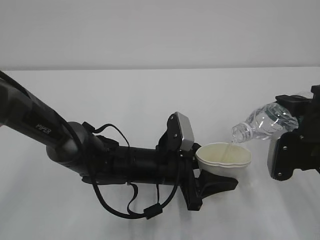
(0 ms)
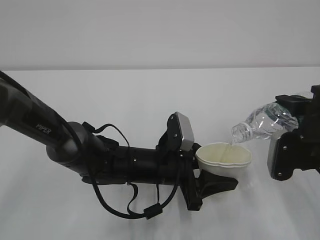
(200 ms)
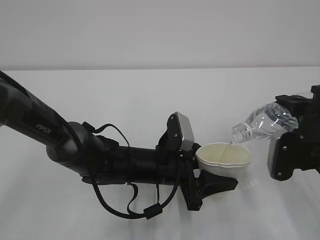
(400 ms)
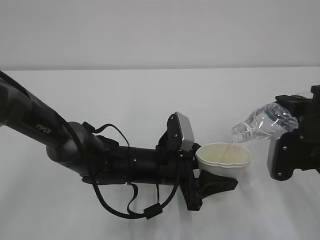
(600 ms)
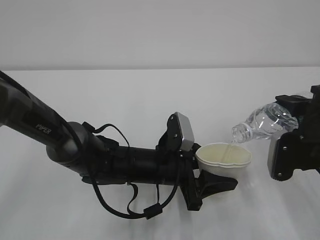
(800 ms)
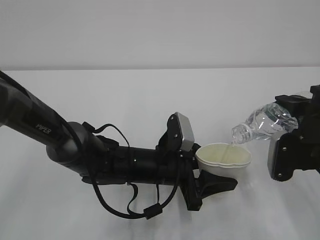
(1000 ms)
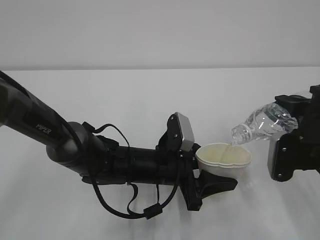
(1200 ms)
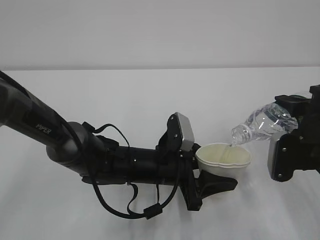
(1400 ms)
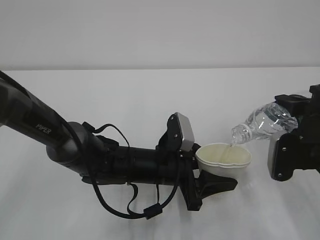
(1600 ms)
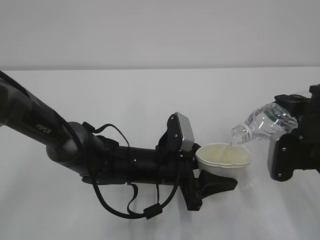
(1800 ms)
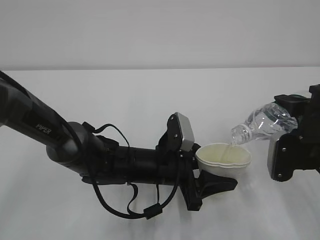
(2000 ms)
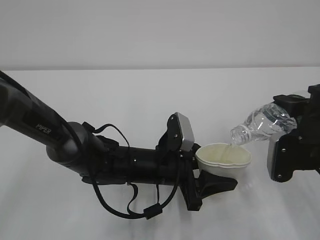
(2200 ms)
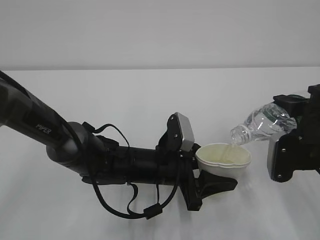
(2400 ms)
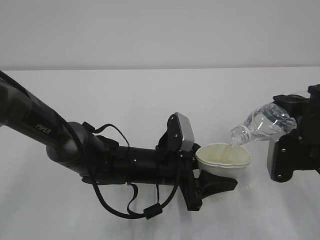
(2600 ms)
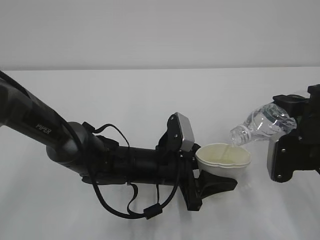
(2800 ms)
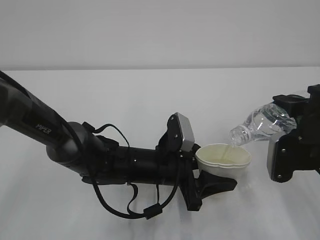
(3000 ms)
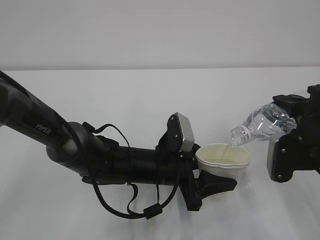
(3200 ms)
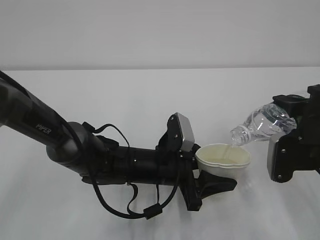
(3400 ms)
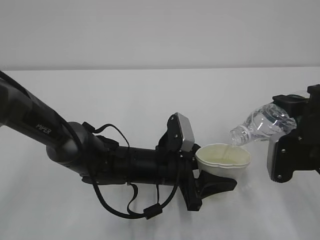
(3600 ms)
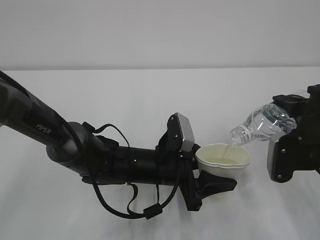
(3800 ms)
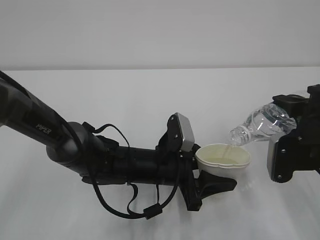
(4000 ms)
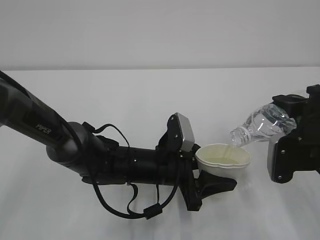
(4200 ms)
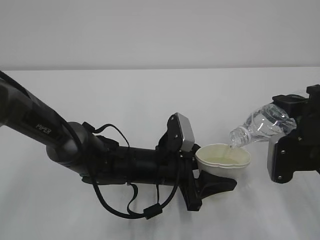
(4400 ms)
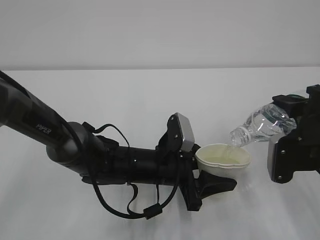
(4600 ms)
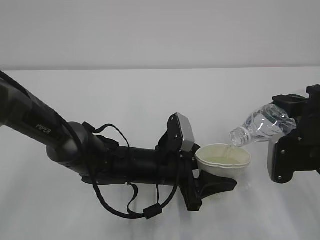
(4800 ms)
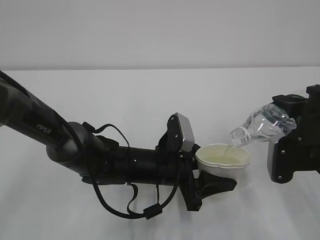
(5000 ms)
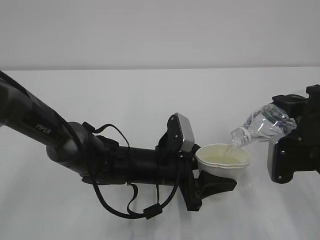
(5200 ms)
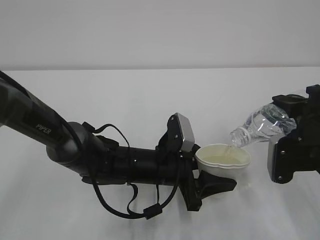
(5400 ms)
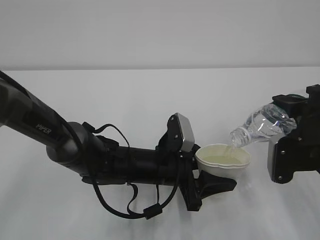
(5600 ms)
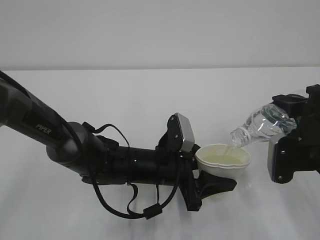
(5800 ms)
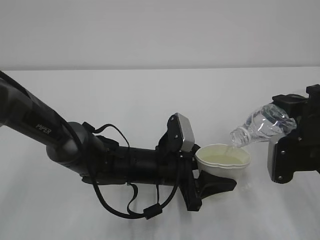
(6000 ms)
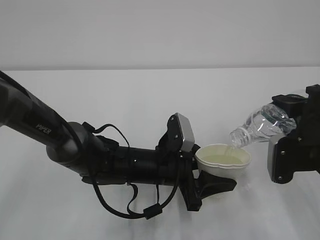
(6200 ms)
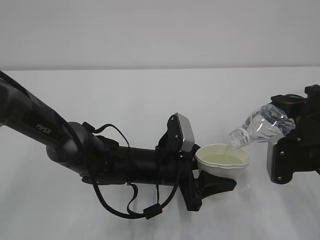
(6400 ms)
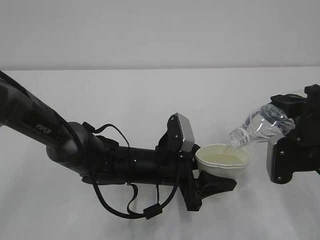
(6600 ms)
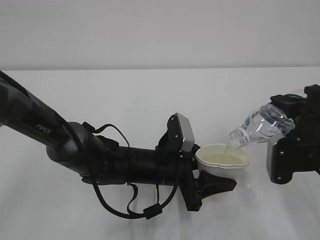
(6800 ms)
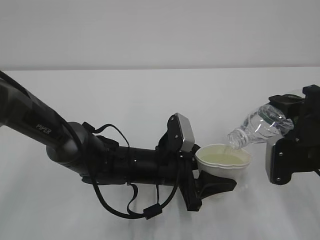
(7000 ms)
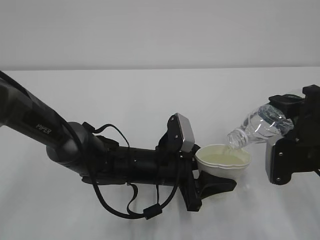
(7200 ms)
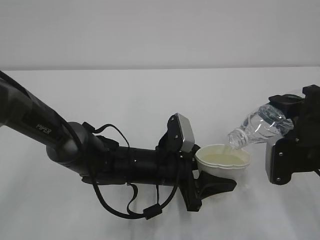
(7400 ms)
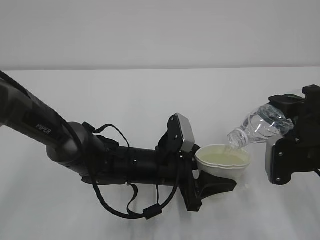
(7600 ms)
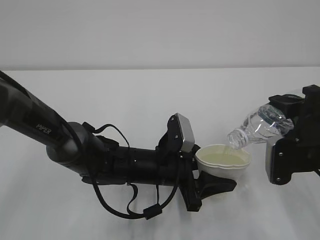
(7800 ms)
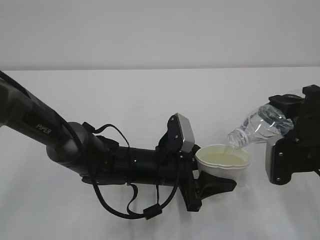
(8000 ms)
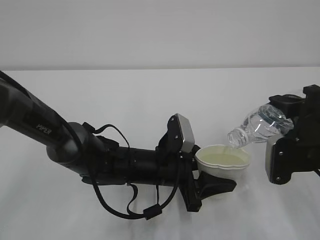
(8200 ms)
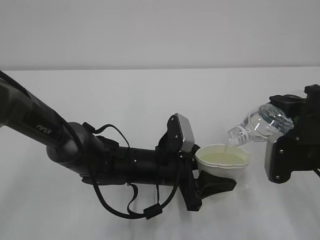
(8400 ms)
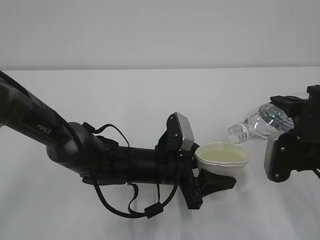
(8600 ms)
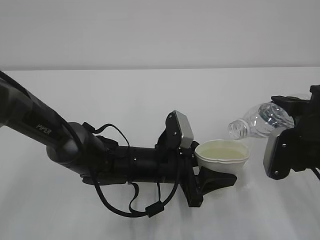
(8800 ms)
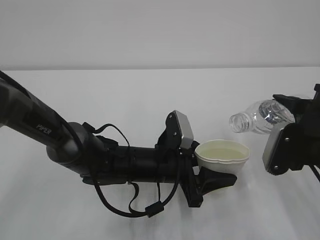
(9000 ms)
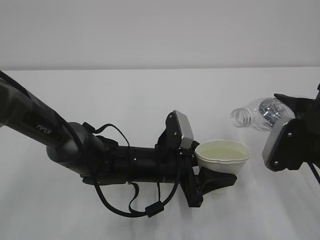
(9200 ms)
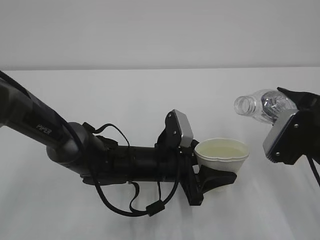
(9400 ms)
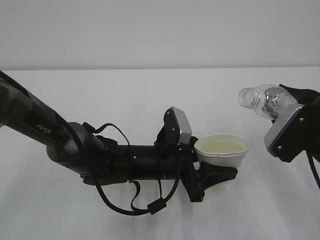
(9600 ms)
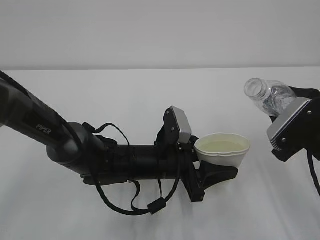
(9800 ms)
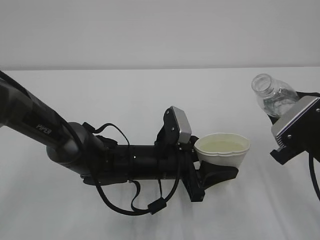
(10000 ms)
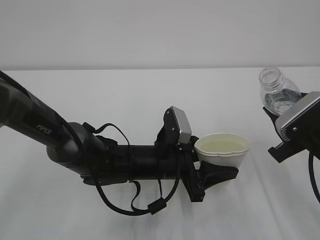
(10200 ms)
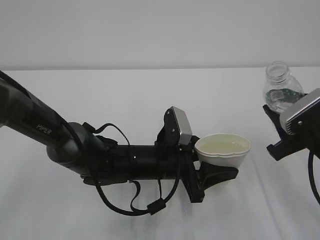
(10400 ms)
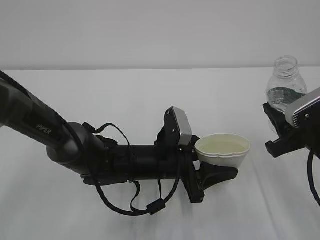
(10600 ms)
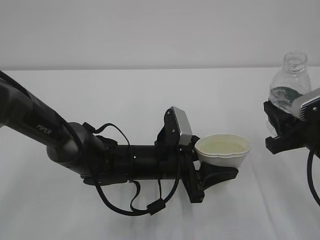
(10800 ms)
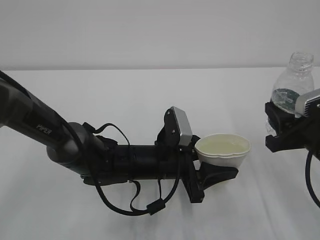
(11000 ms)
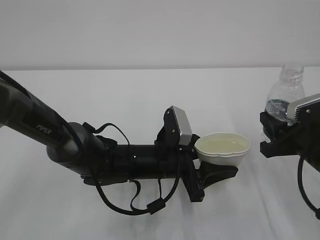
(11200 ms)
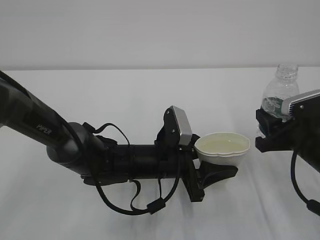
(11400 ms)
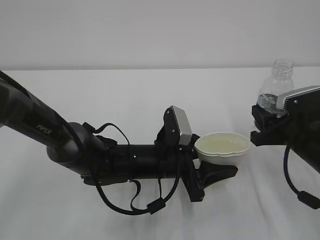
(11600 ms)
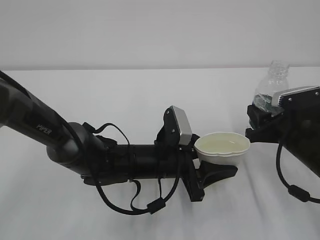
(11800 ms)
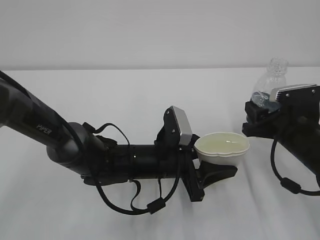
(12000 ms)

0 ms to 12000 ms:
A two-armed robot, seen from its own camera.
0 ms to 6000 ms: Both grippers stay about where they are.
6000 ms to 7600 ms: Neither gripper changes place.
7600 ms to 9000 ms: The grippers stay close to where they were, moving slightly.
10400 ms to 12000 ms: The right gripper travels forward by some 5 cm.

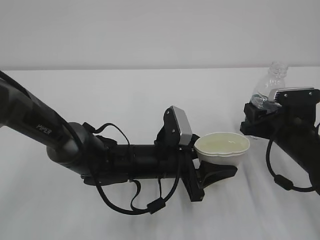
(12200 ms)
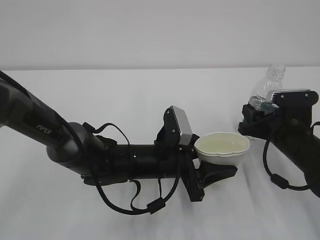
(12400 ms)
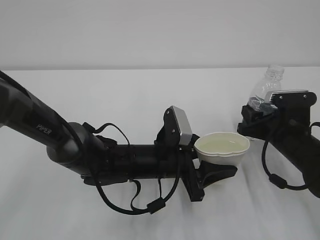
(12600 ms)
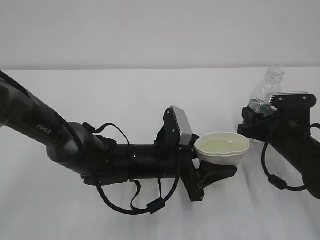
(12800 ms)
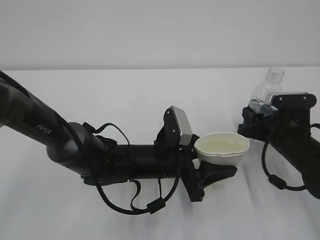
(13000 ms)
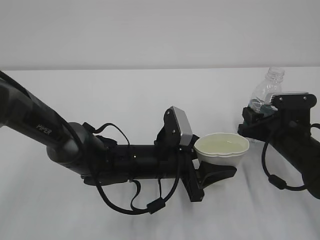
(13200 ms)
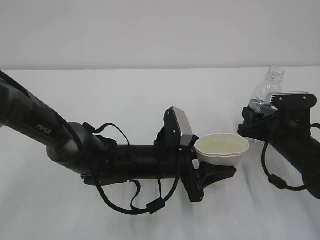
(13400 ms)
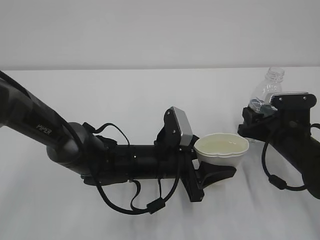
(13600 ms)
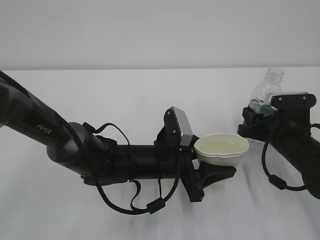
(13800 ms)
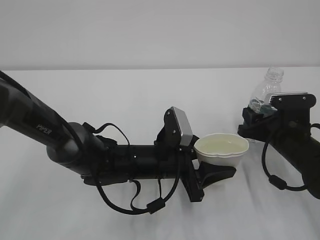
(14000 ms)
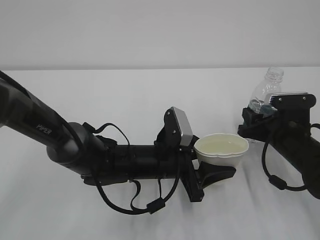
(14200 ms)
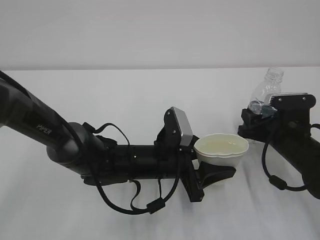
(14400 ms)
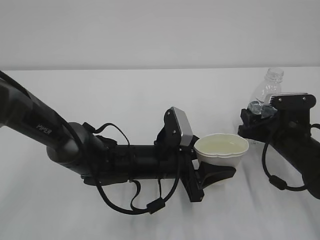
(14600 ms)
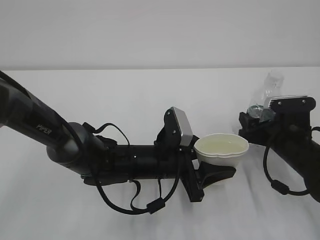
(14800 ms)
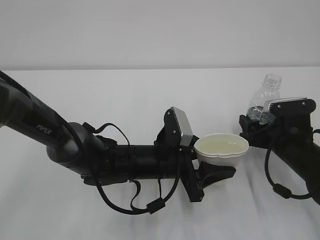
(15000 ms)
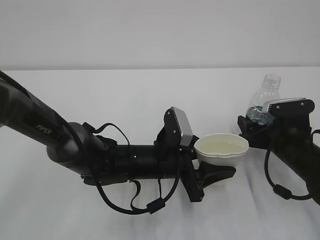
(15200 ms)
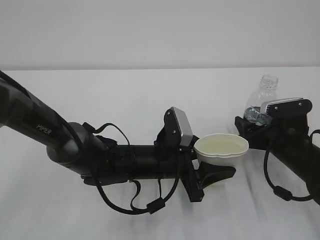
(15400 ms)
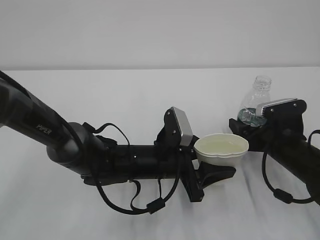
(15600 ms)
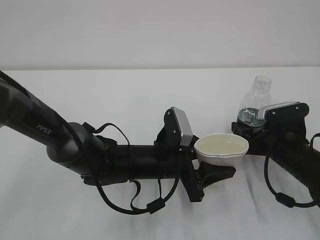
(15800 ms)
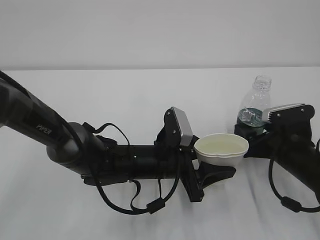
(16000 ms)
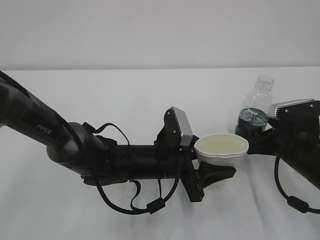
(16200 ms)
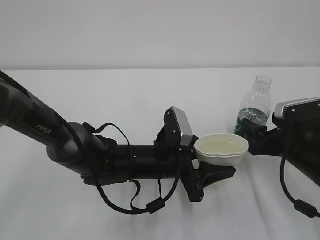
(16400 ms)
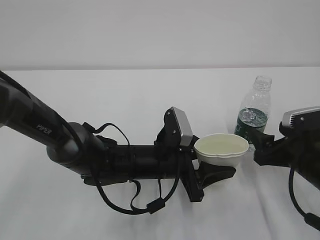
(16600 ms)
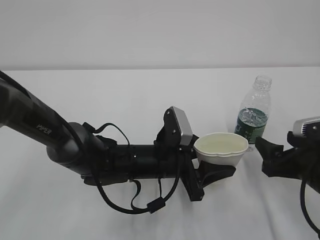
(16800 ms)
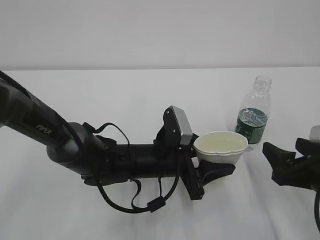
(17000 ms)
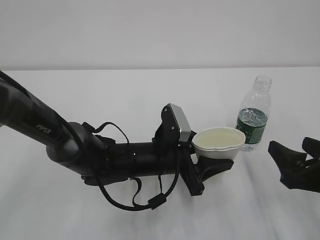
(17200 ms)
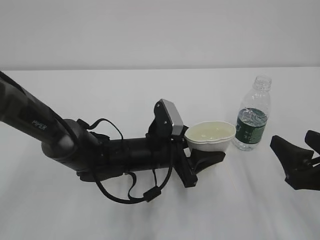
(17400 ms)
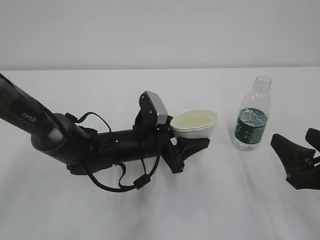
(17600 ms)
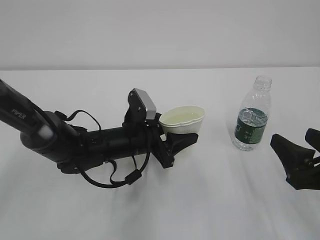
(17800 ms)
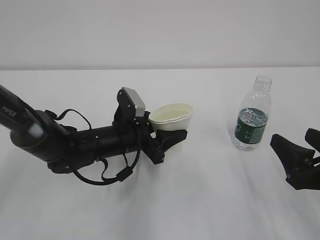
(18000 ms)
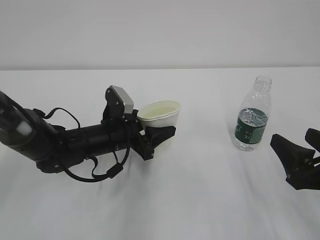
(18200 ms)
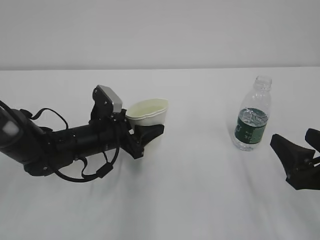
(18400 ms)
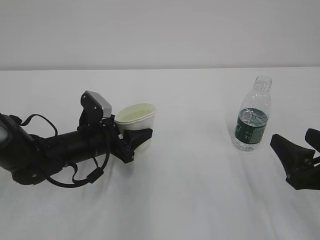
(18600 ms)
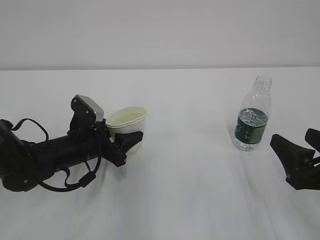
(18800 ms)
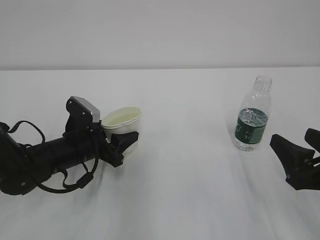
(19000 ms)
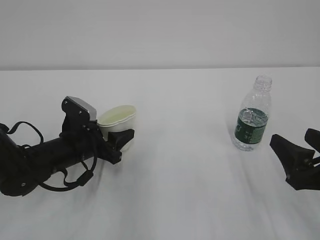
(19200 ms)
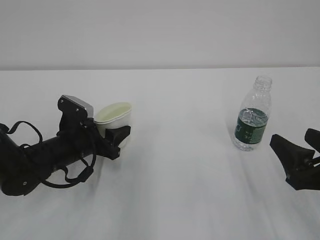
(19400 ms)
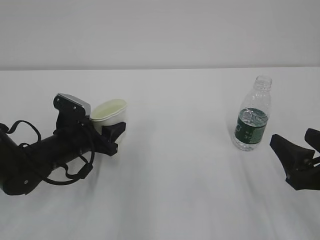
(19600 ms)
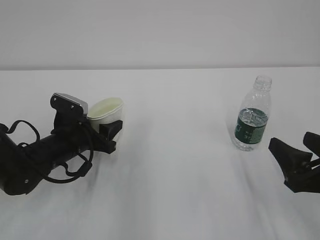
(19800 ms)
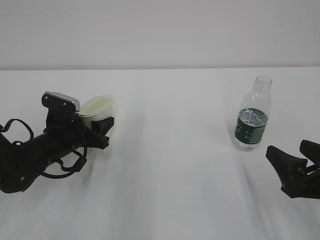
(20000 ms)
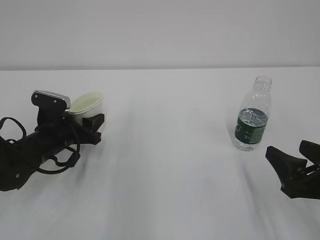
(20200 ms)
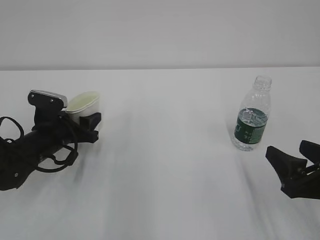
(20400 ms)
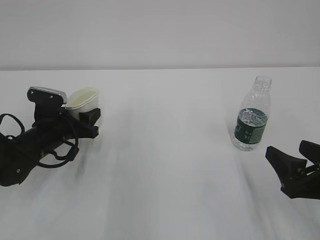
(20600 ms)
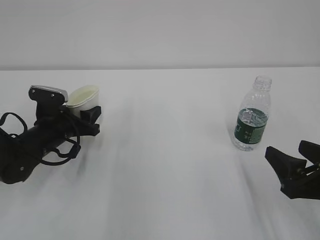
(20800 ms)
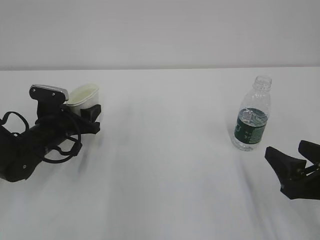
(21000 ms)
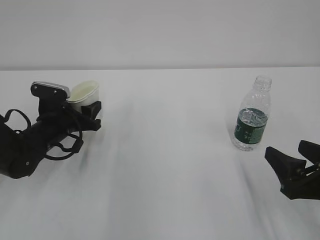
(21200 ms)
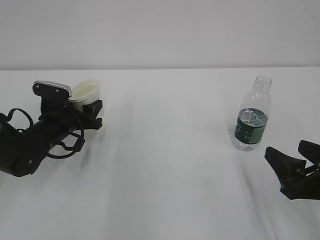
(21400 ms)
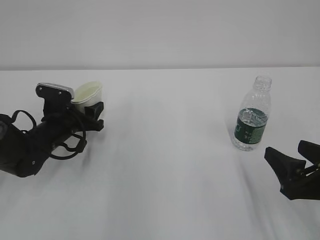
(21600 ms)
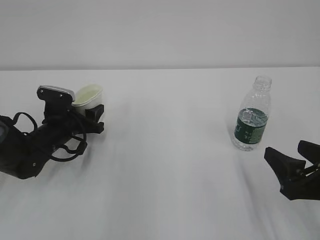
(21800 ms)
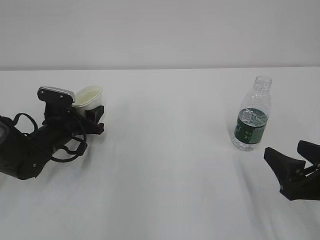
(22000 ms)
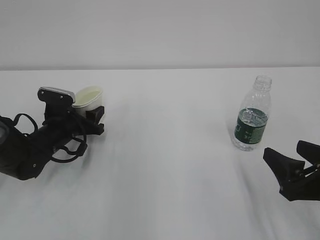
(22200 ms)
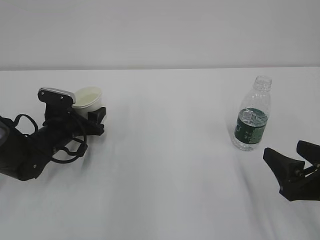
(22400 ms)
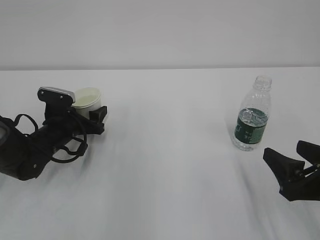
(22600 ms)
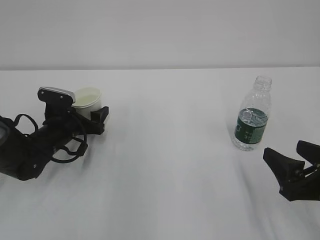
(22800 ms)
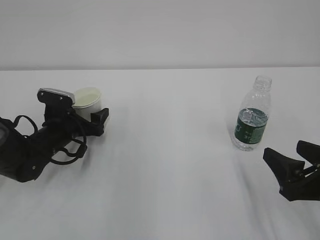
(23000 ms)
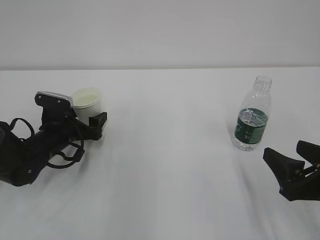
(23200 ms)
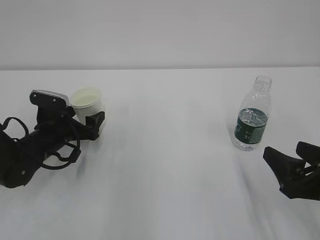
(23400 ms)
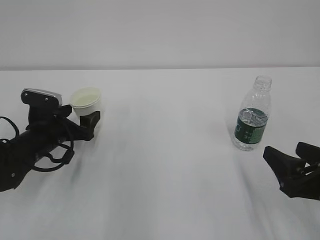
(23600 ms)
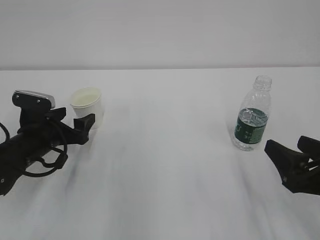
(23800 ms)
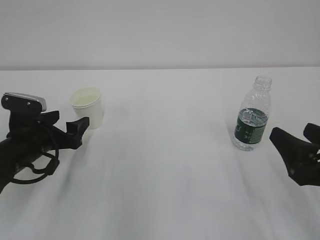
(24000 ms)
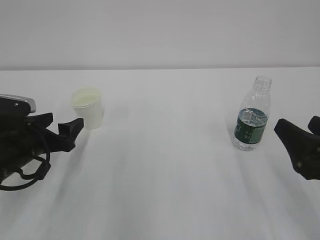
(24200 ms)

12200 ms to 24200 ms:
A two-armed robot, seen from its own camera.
12200 ms to 13800 ms: The grippers stay close to where they were, moving slightly.
13800 ms to 15200 ms: The right gripper opens.
15200 ms to 16600 ms: The right gripper shifts about 5 cm backward.
16600 ms to 18200 ms: The left gripper moves to the left and forward, some 10 cm. Meanwhile the right gripper moves backward, about 10 cm.
18200 ms to 19800 ms: The left gripper is displaced to the left by about 10 cm.
19800 ms to 21200 ms: The left gripper moves approximately 5 cm.
21200 ms to 22600 ms: The left gripper opens.
22600 ms to 24200 ms: The left gripper heads backward and upward, covering some 10 cm.
